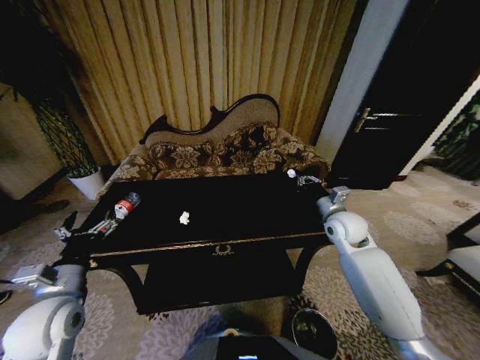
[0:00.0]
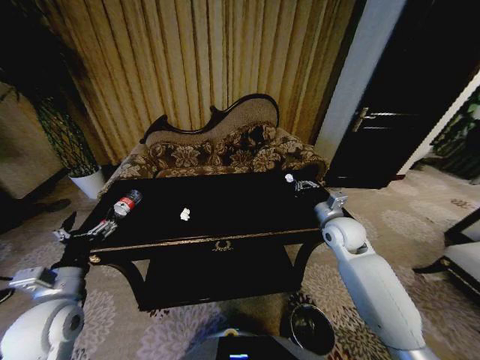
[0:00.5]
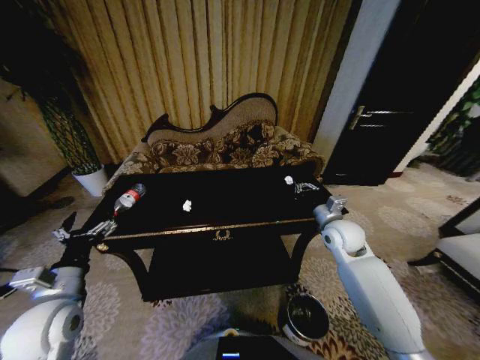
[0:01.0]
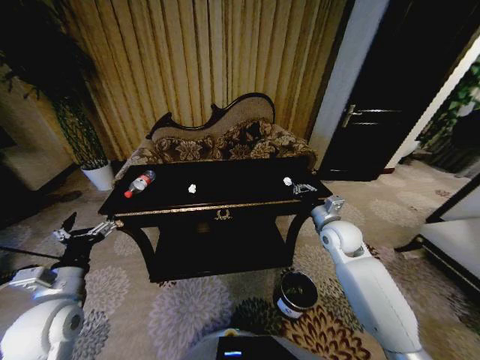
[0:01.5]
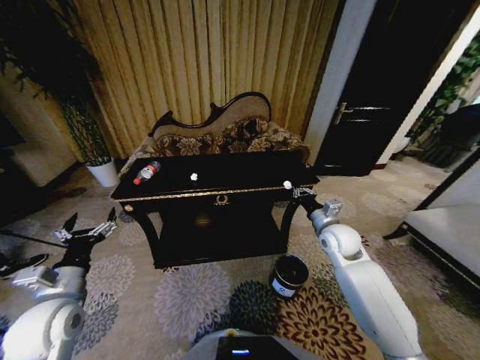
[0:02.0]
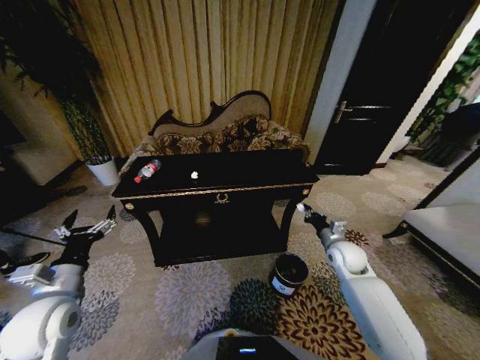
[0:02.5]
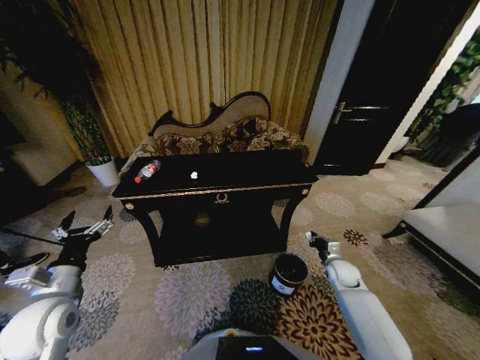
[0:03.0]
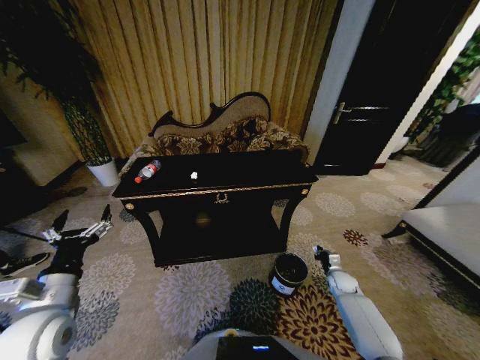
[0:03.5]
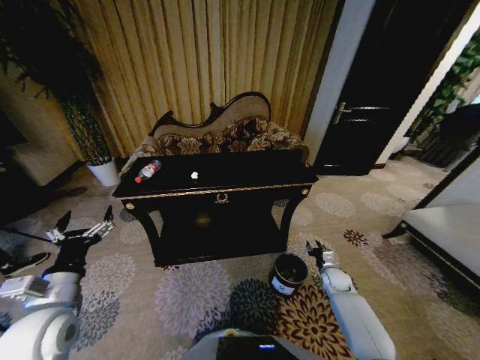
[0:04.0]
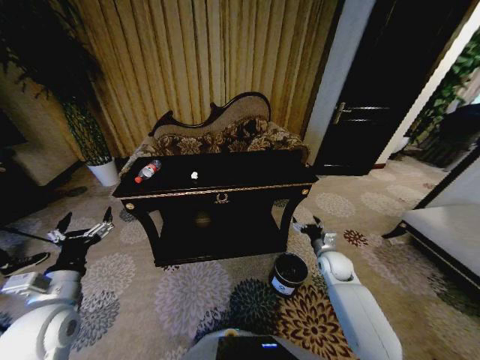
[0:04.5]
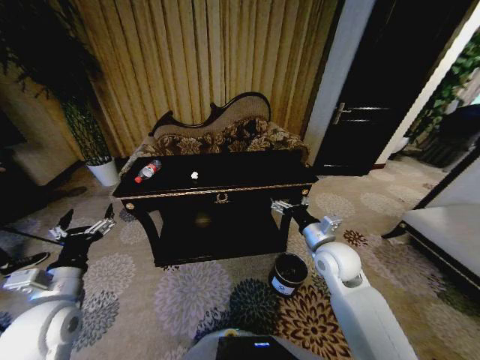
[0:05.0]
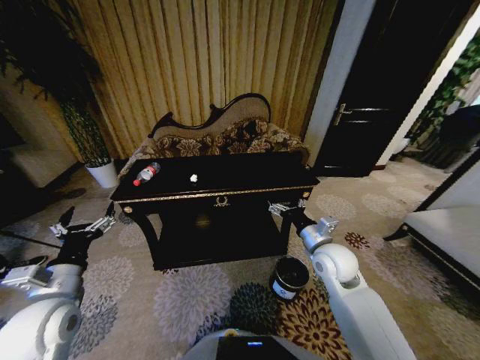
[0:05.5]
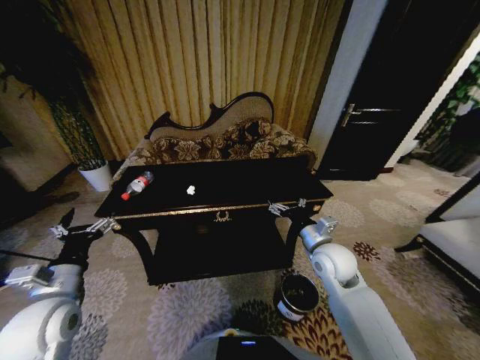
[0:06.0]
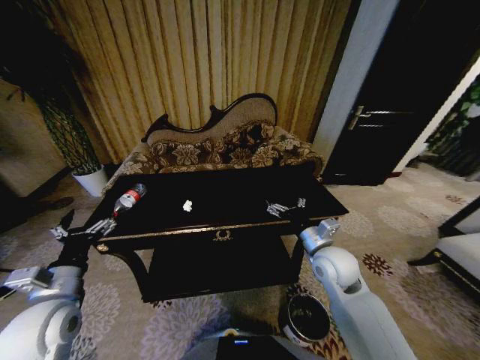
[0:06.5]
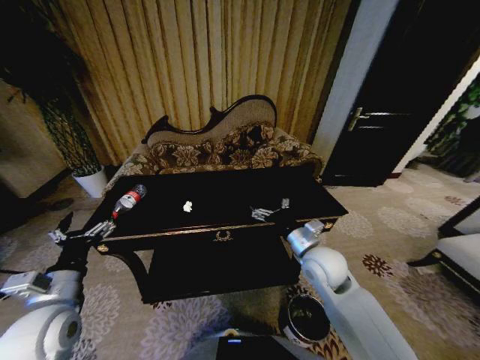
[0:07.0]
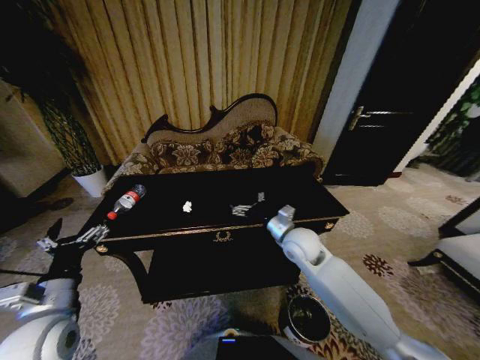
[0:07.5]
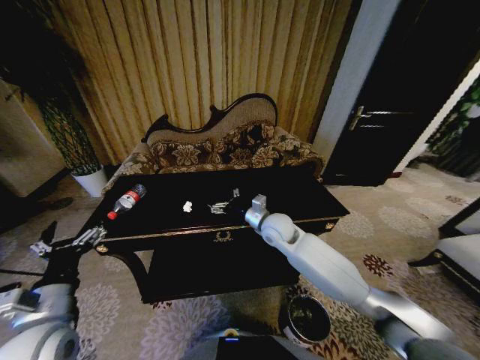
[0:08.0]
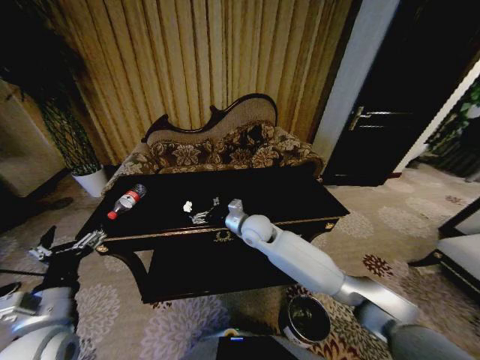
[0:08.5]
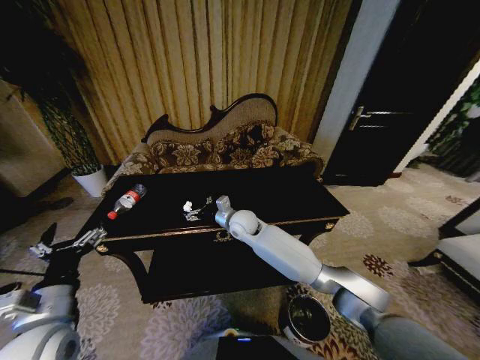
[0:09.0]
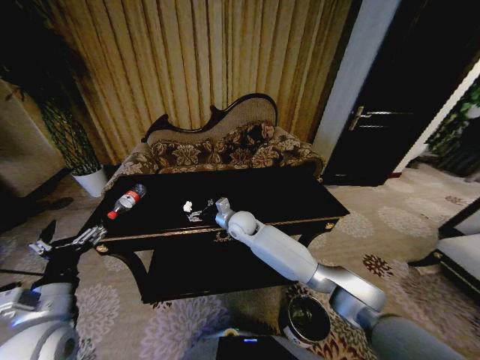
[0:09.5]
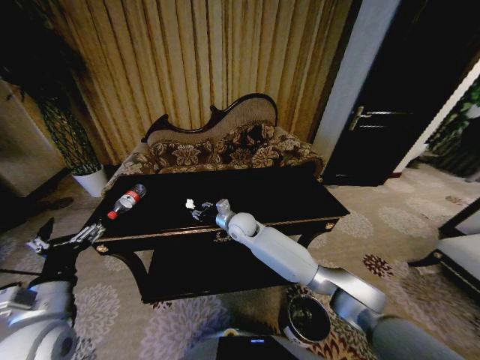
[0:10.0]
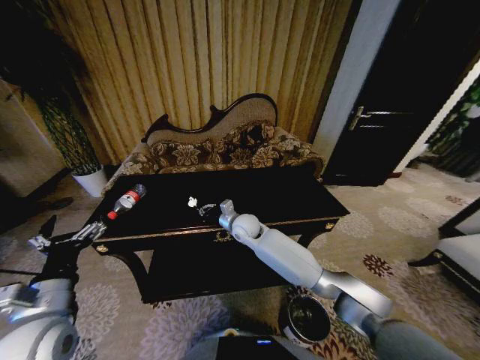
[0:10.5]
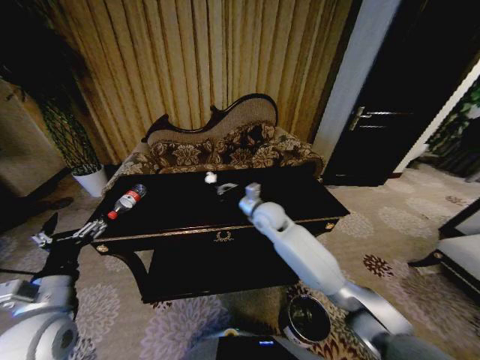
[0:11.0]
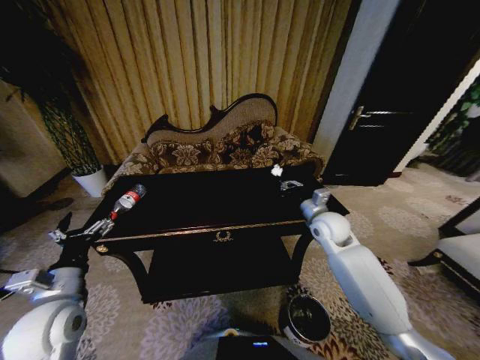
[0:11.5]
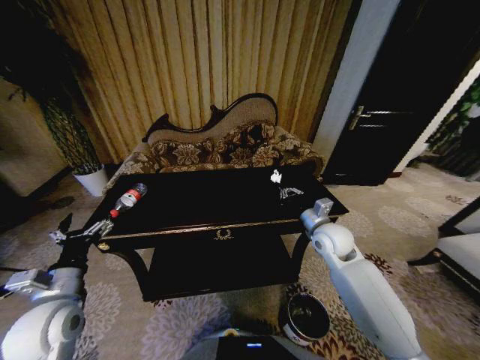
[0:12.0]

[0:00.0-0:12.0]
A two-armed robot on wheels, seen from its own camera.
Task of the whole recording: Move to the front of the table and place the trash on the table into the trash bin.
2.0 to 4.0 s: The right gripper is displaced downward by about 25 cm, and opens up.
4.0 to 6.0 s: The right gripper shifts approximately 30 cm upward and to the left, and opens up.
6.0 to 8.0 s: The right gripper goes roughly 15 cm to the left and forward, while the left gripper changes place by roughly 5 cm.
8.0 to 10.0 s: The right gripper moves to the left and downward, some 10 cm, and closes.
10.0 to 12.0 s: The right gripper goes approximately 25 cm to the right, and closes. The left gripper shifts by some 5 cm.

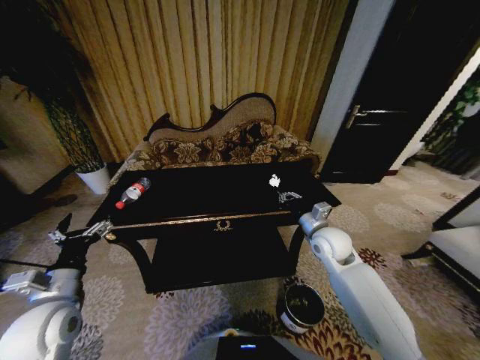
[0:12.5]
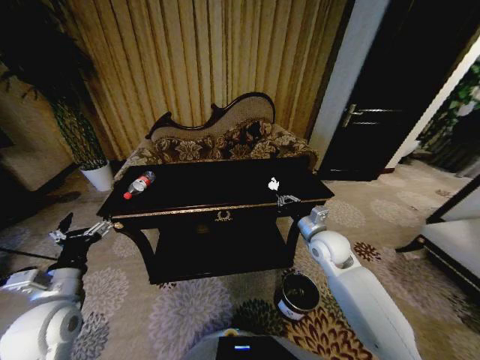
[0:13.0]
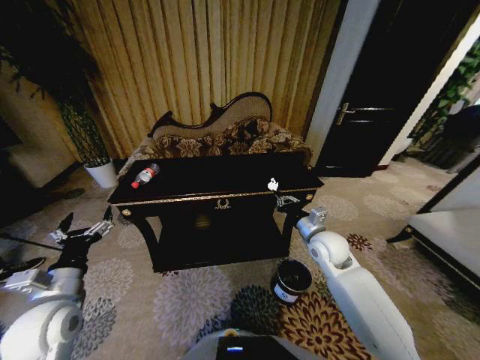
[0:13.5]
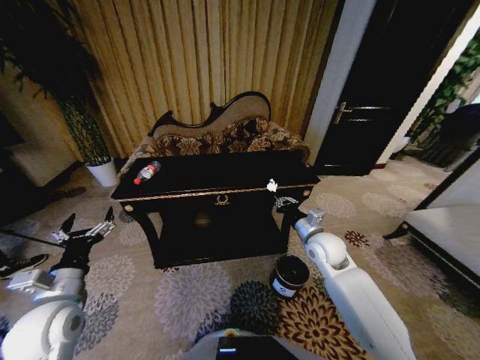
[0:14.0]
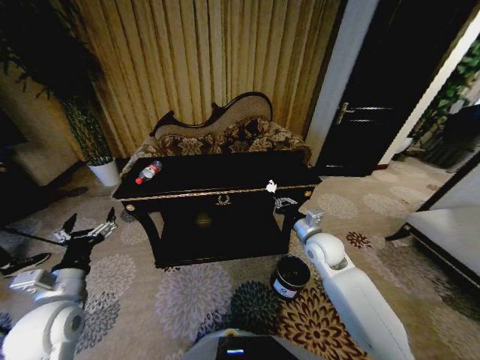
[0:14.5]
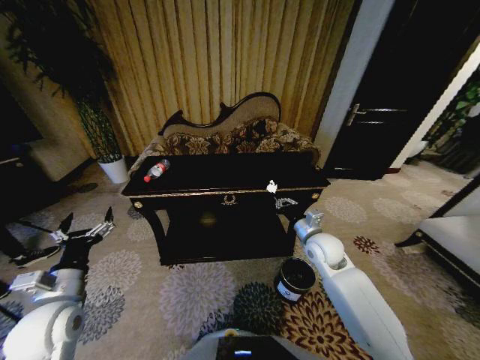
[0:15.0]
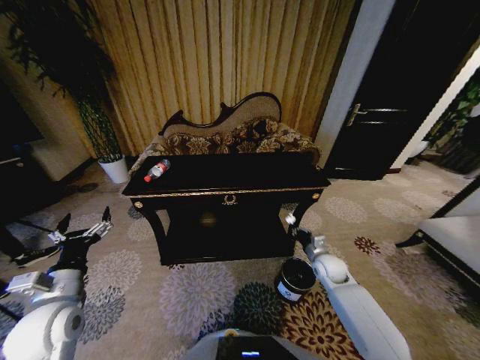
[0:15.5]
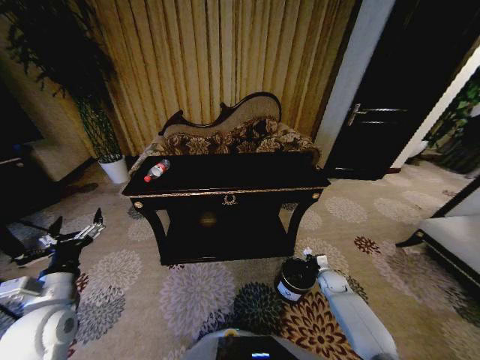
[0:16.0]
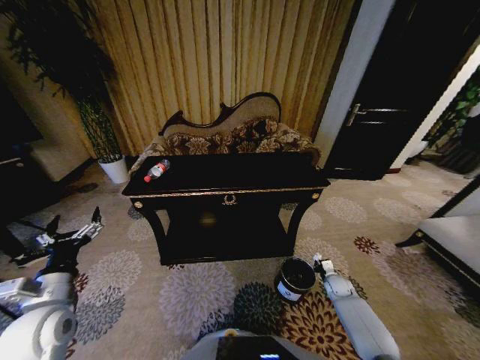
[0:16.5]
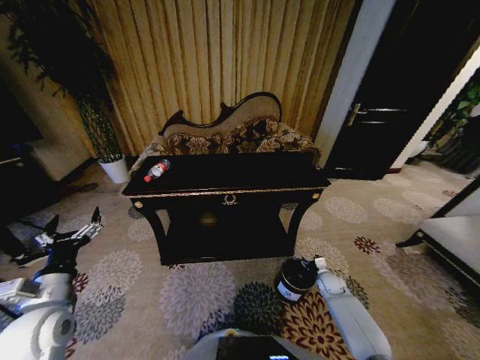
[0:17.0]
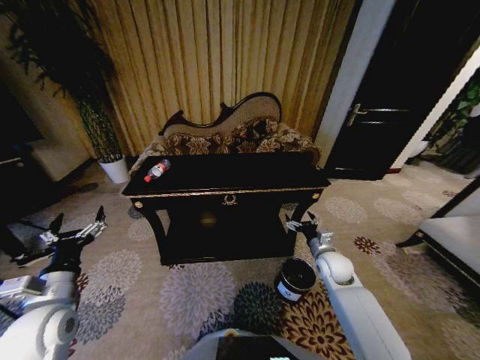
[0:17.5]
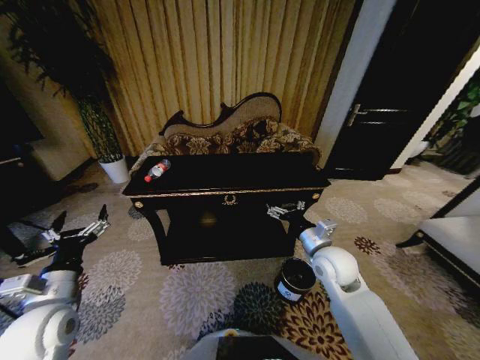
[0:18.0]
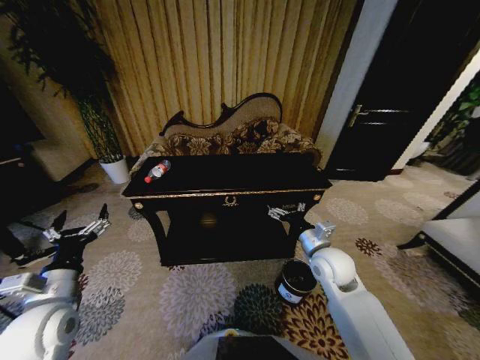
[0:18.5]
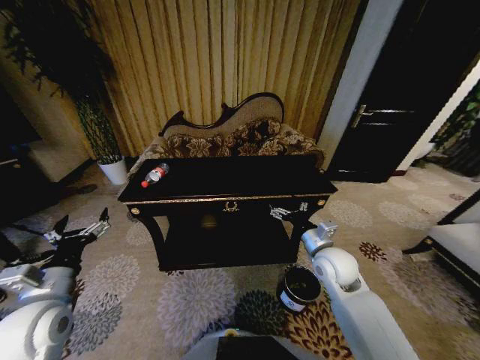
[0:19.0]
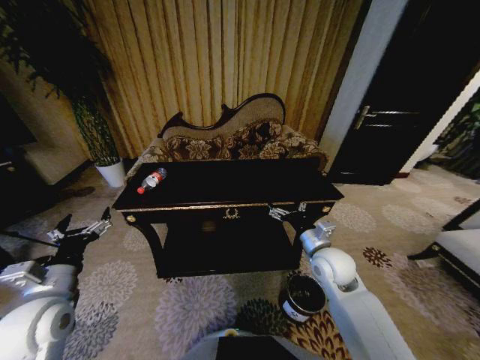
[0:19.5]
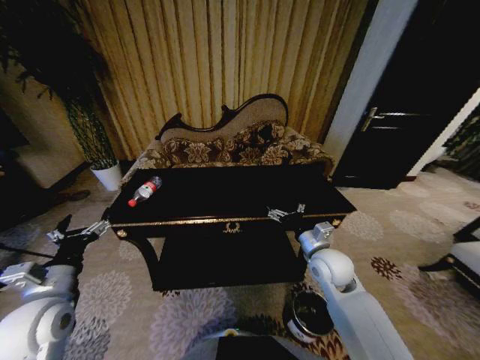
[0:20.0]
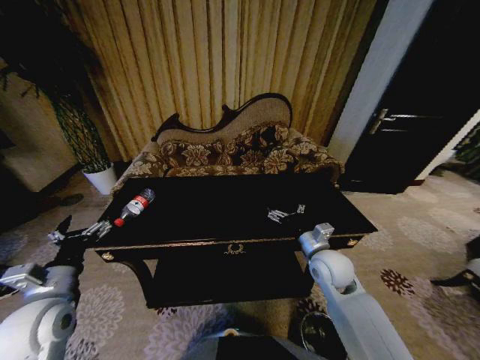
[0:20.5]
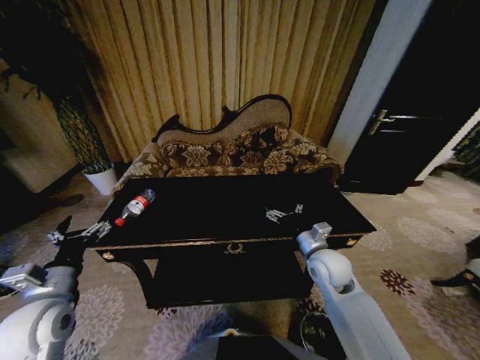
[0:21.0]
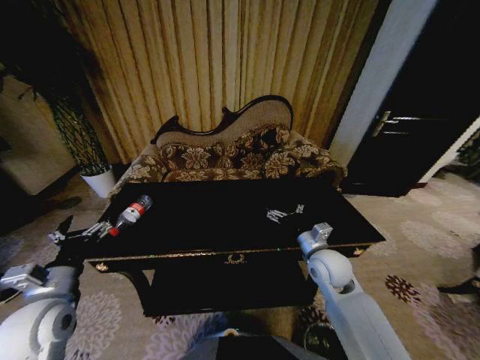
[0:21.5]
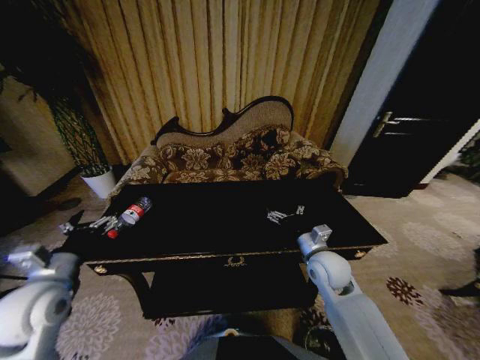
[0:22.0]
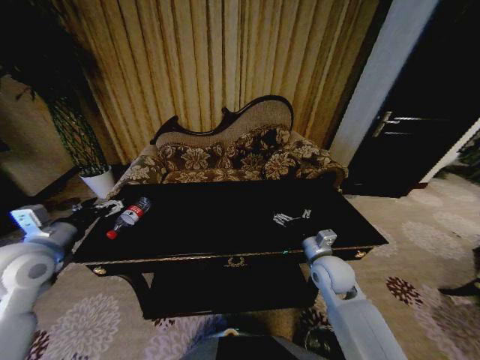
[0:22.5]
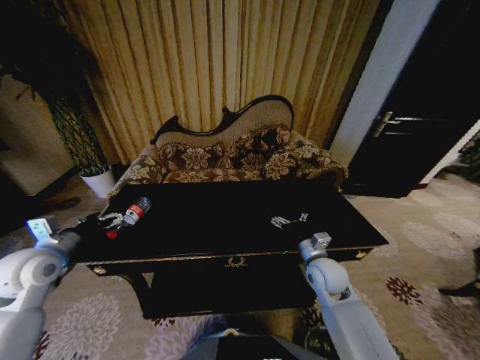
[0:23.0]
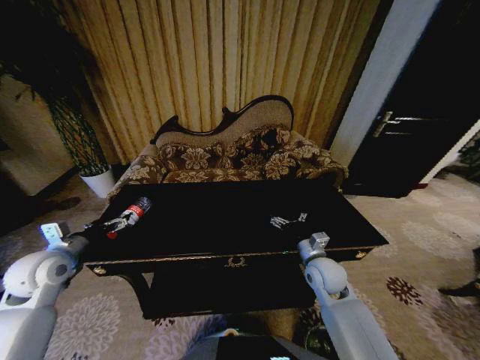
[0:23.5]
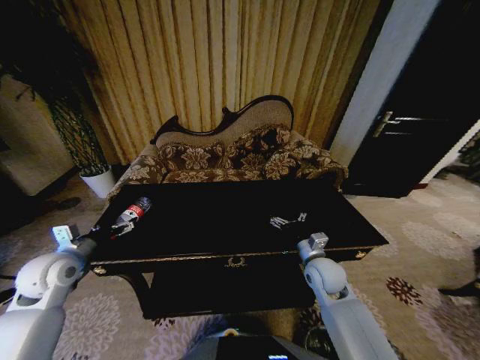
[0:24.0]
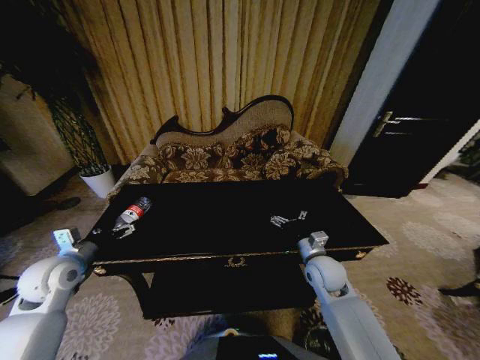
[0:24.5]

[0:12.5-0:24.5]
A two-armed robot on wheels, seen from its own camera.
Task of the whole recording: Move to the front of the table and place the trash on the table into the trash bin.
14.5 to 16.5 s: The right gripper shifts about 30 cm downward and to the right.
16.5 to 18.5 s: The right gripper goes some 35 cm upward and to the left, and opens.
20.5 to 22.5 s: The left gripper travels forward and upward by about 10 cm.
22.5 to 24.5 s: The left gripper goes about 10 cm downward.

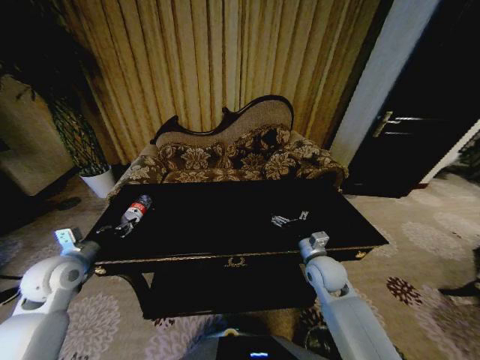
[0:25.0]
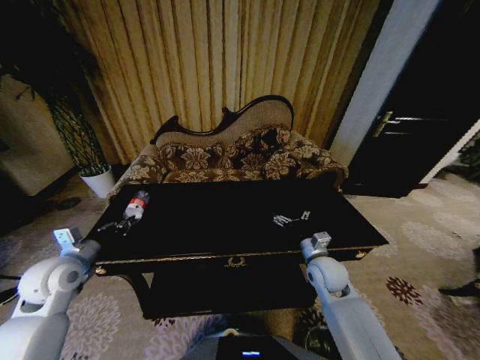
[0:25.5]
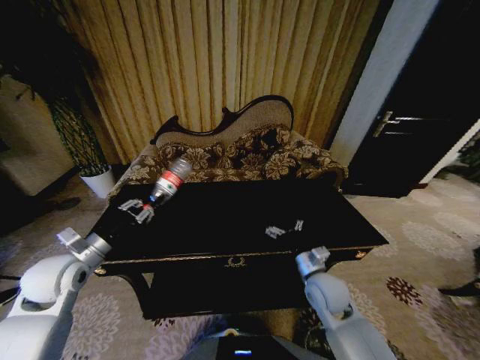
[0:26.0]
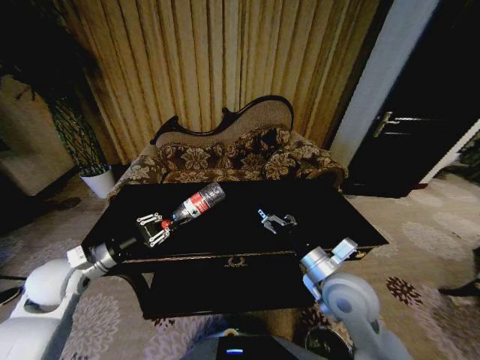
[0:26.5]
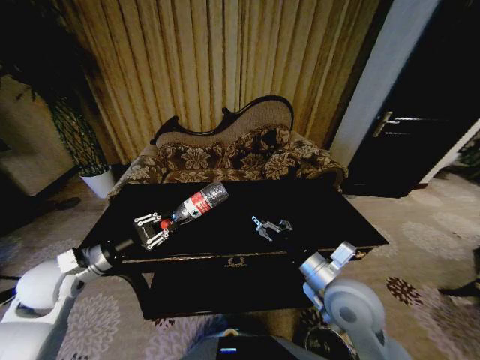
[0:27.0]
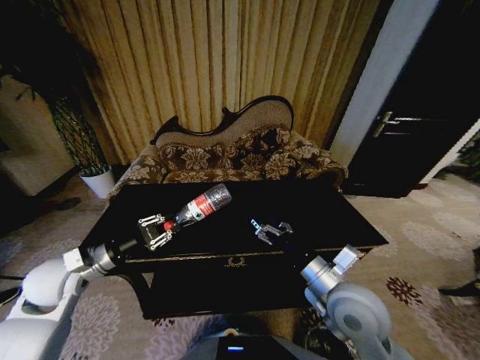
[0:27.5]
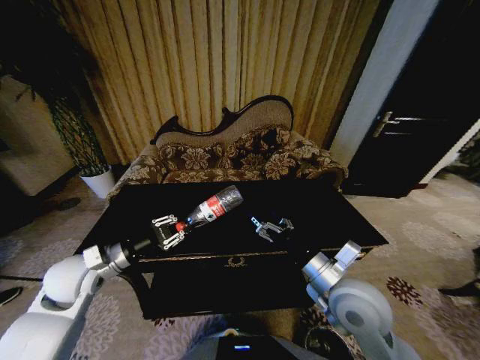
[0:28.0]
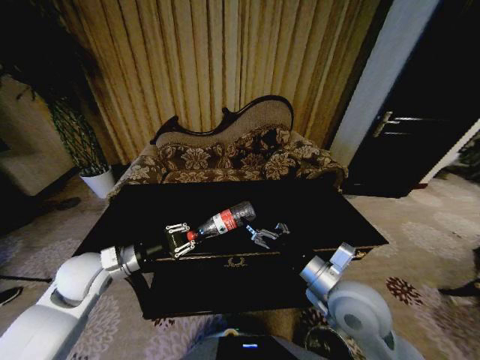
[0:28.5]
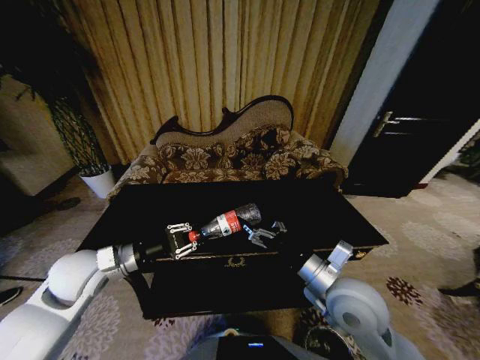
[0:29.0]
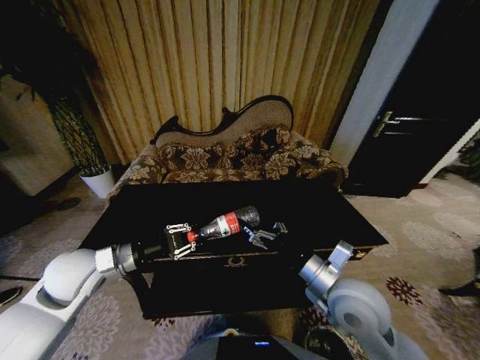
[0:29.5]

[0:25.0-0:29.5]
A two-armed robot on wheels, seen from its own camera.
Task of the whole recording: Move to the front of the table and place the trash on the table into the trash bin.
25.0 to 27.0 s: The left gripper closes its fingers. Meanwhile the right gripper is displaced upward and backward by about 15 cm.
27.0 to 29.5 s: The left gripper travels to the right by approximately 5 cm.
